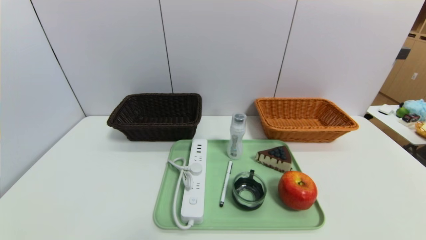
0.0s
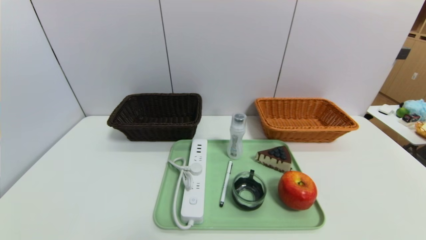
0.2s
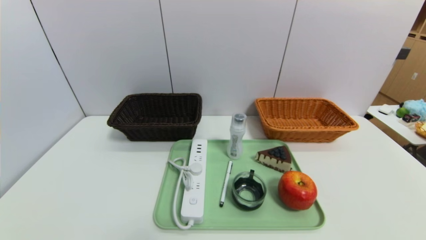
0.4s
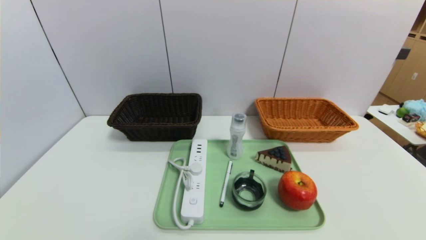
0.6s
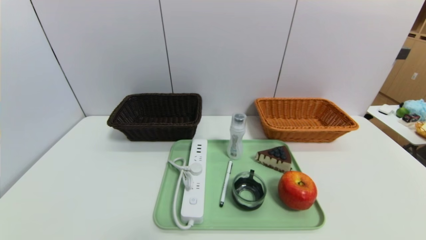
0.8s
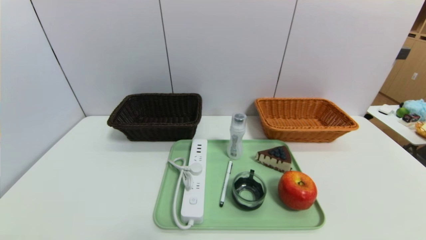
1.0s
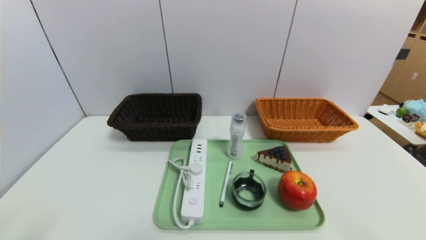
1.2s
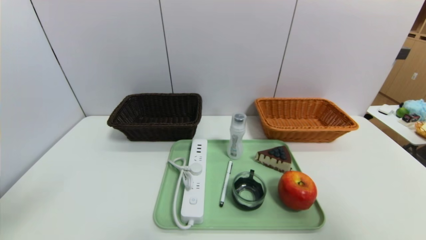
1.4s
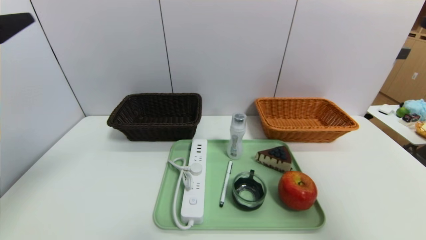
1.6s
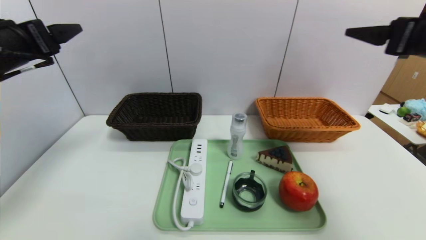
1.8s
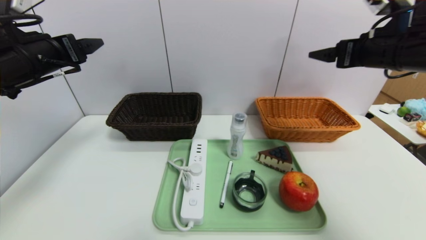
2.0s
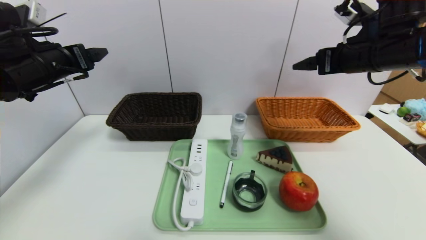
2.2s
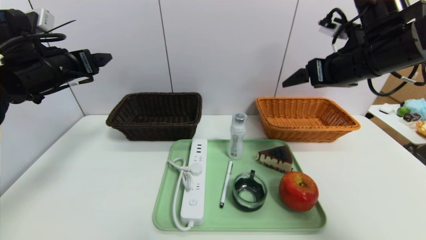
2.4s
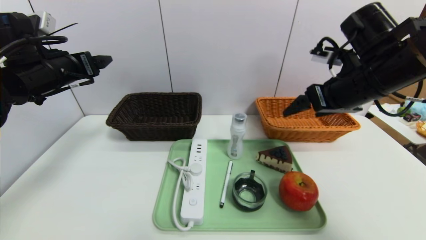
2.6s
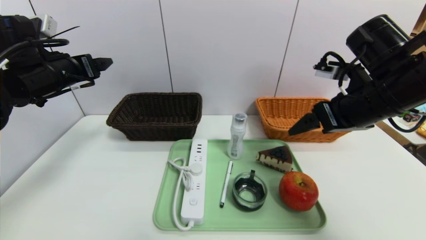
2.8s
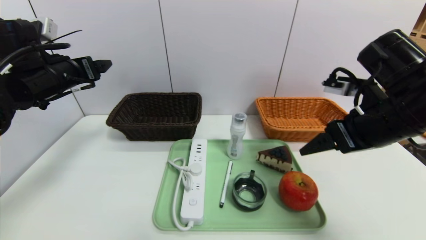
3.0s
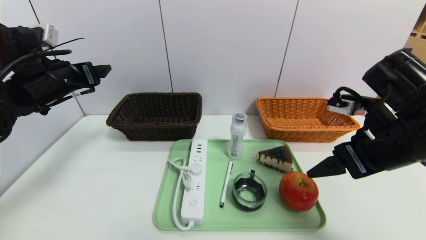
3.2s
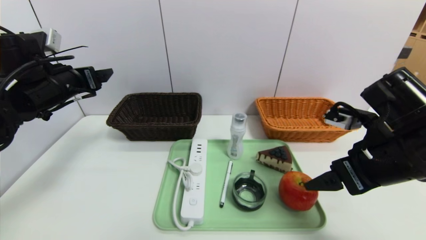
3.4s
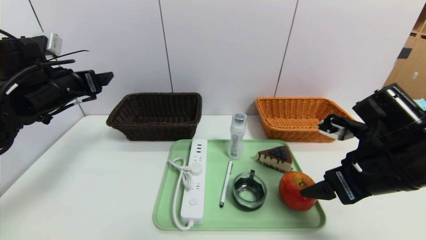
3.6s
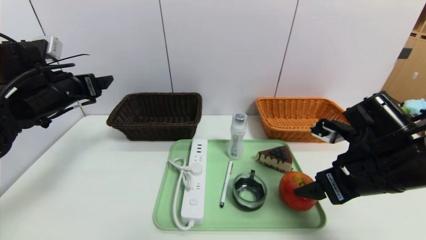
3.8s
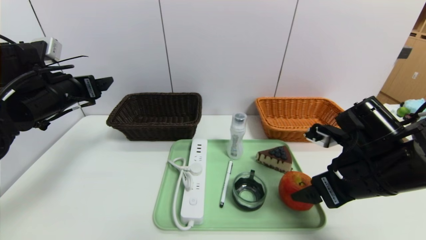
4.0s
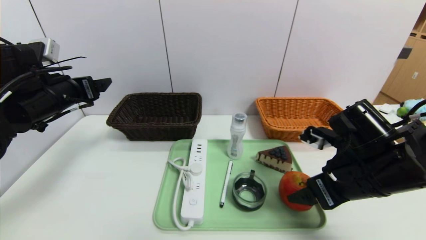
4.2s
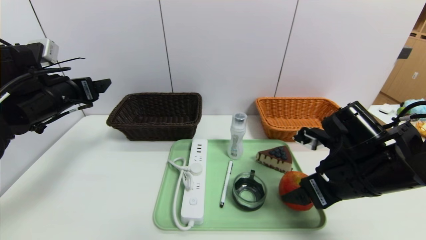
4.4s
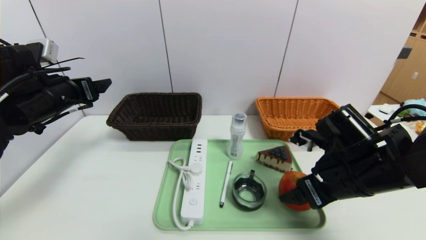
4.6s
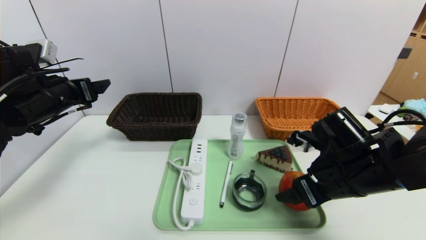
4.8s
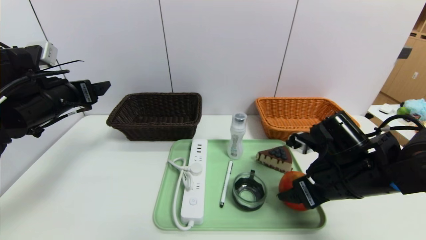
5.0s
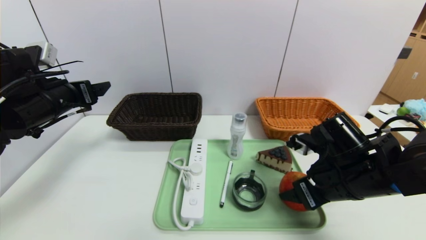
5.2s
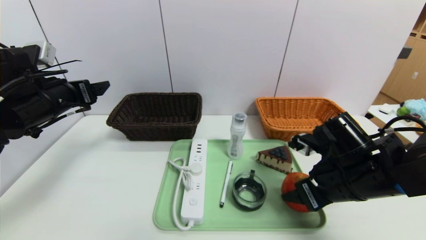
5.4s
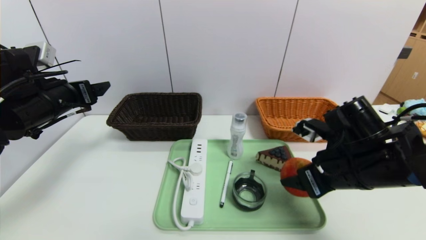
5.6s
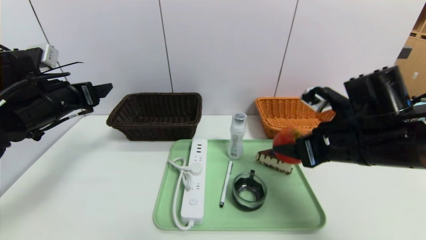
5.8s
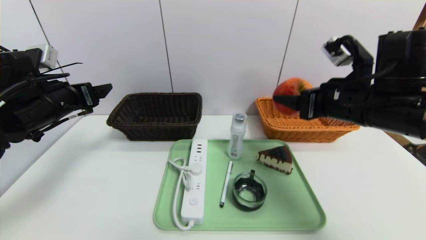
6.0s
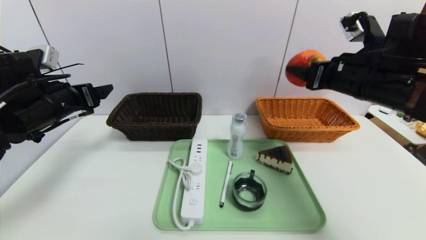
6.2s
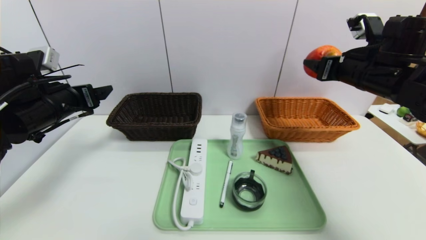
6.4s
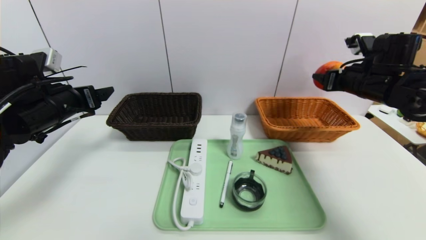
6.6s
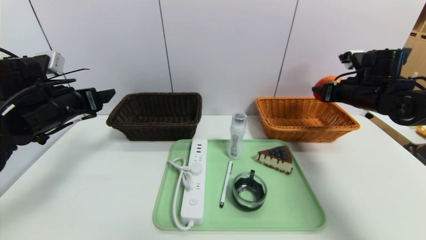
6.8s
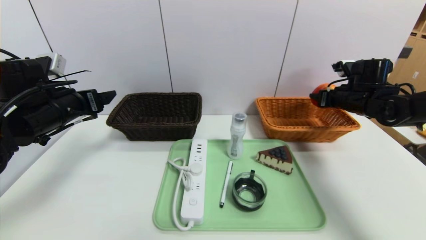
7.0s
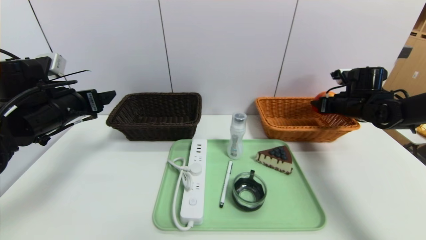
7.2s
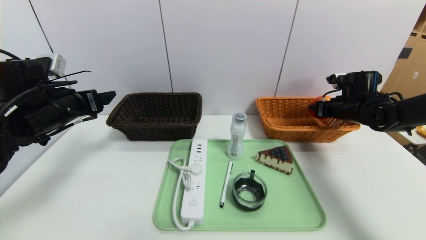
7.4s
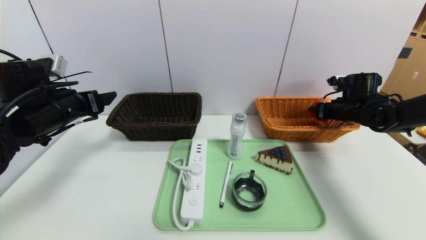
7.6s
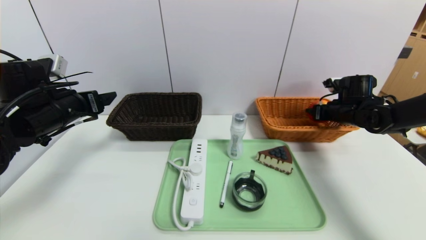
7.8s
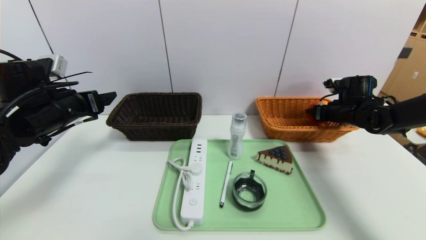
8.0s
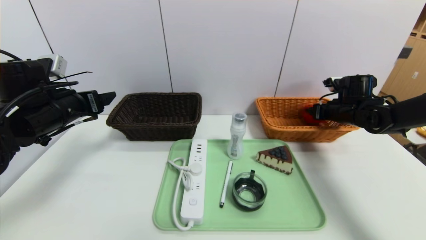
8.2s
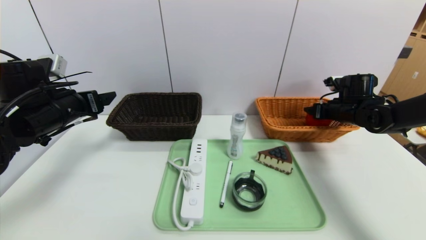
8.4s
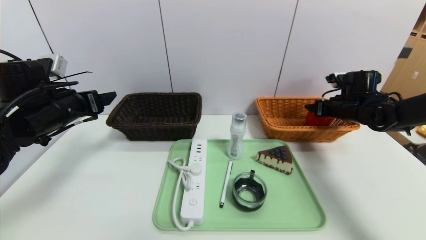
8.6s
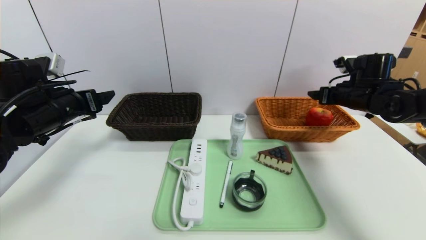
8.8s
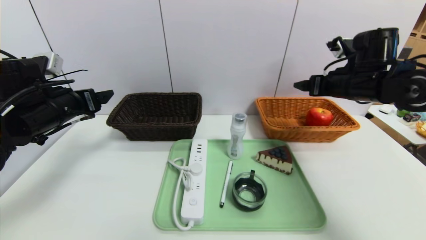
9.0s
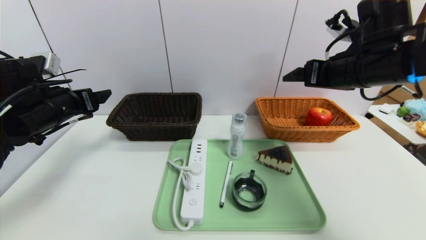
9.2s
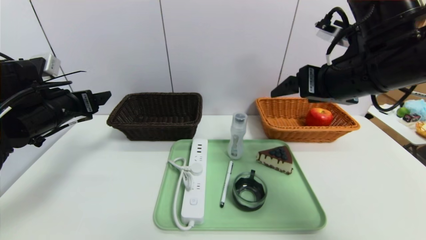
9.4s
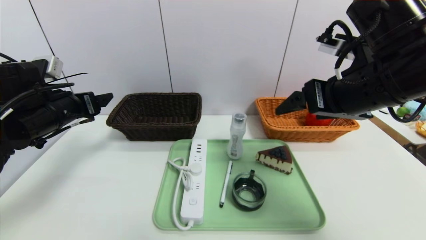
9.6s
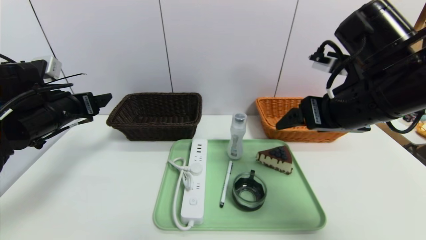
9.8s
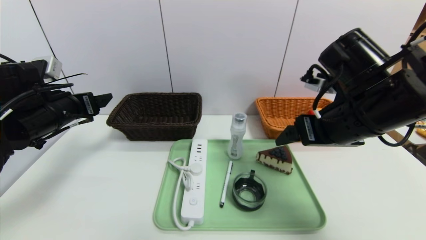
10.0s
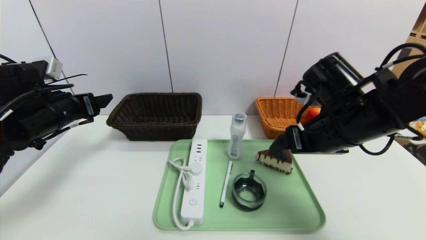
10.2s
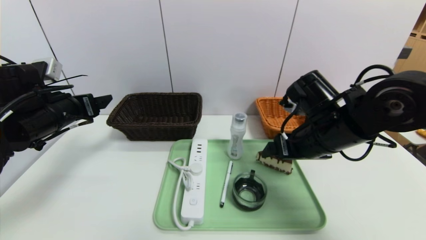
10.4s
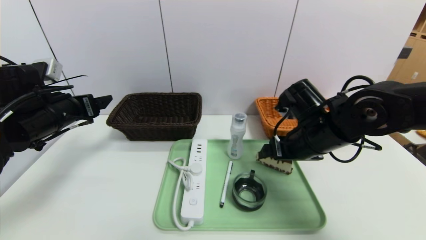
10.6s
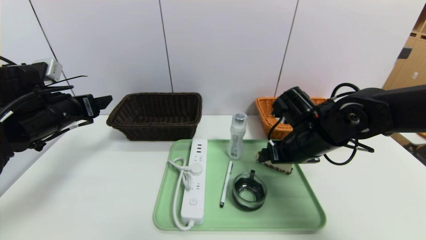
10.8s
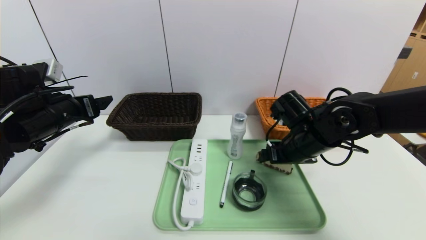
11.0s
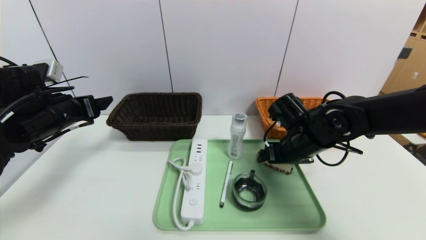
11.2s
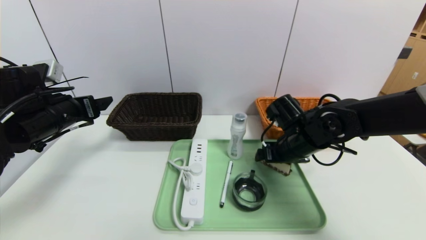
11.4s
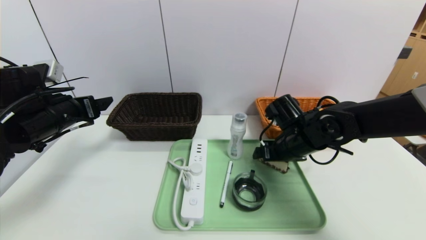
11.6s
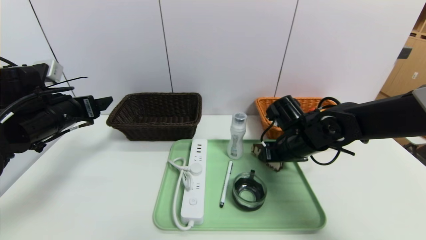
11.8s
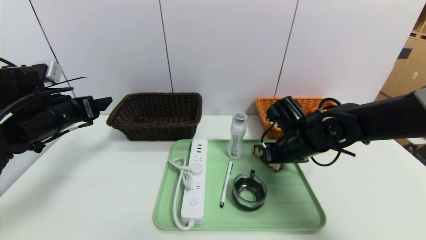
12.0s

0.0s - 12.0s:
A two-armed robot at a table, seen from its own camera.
Task of the whole recording: place the food in the right basket with the right gripper, and place the non food items in the left basket with the left gripper.
Step, 0.0s - 8.8s: Grasp the apple and put it in the right basket.
0.0s - 1.6s: The two grippers go approximately 35 cm upward and forward.
1.6s - 3.0s: The left gripper is displaced forward by approximately 15 cm; the right gripper goes about 15 cm downward, forward and to the left.
3.0s - 4.4s: The right gripper travels downward by about 10 cm.
4.4s - 6.0s: The right gripper moves upward, some 10 cm, and closes up.
6.0s - 7.6s: The right gripper shifts approximately 25 cm forward, to the right and downward.
7.6s - 9.0s: The right gripper travels upward, to the left and backward by some 15 cm, and opens up.
9.0s - 10.4s: The right gripper goes approximately 15 cm to the left, backward and downward.
10.4s - 12.0s: The right gripper travels downward by approximately 5 cm, and closes up.

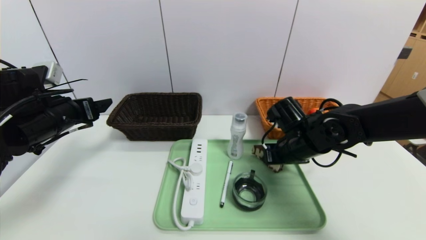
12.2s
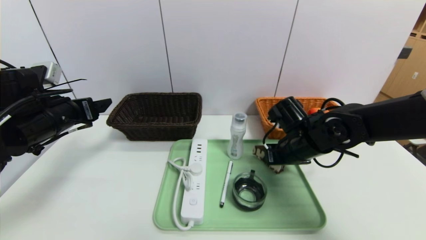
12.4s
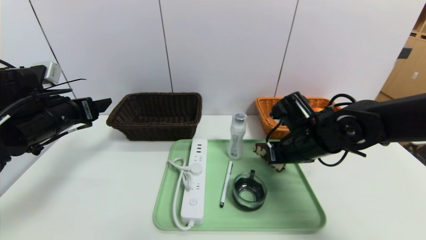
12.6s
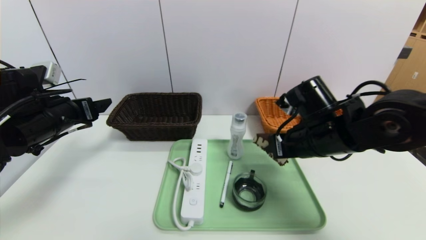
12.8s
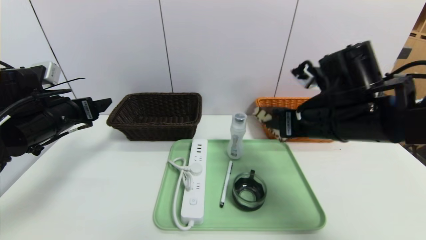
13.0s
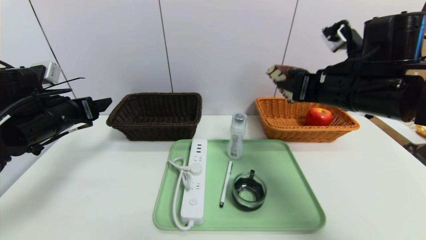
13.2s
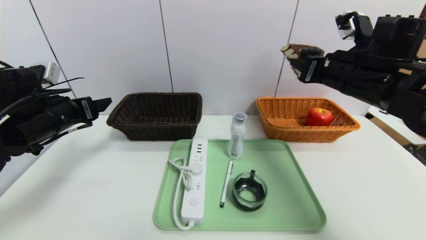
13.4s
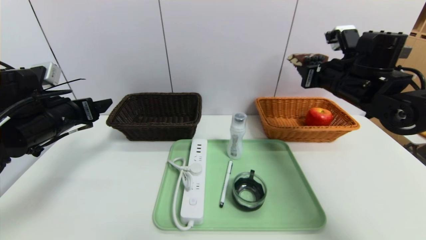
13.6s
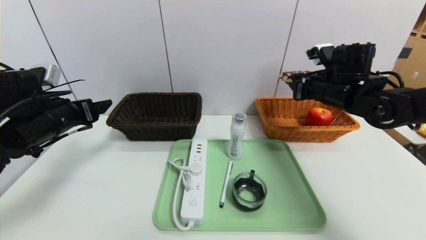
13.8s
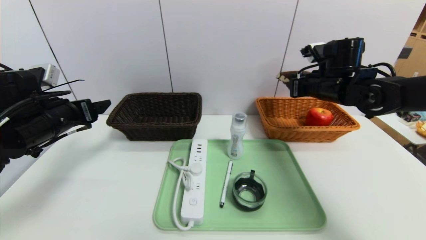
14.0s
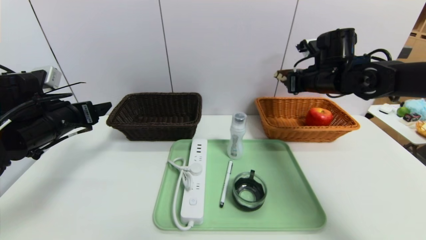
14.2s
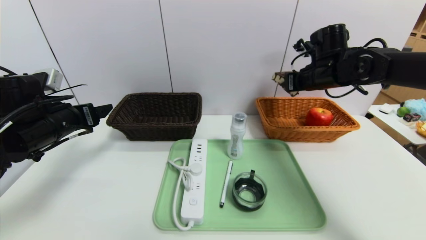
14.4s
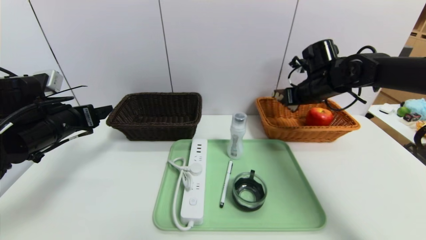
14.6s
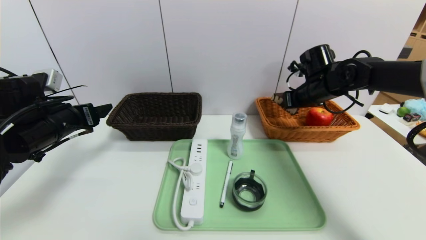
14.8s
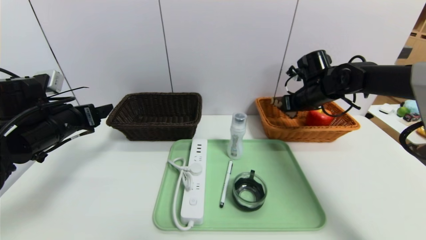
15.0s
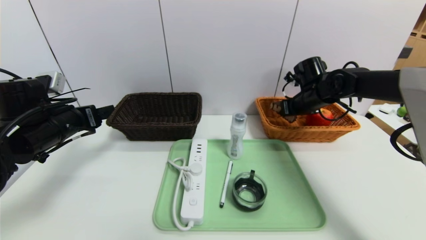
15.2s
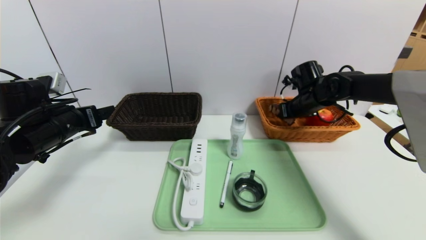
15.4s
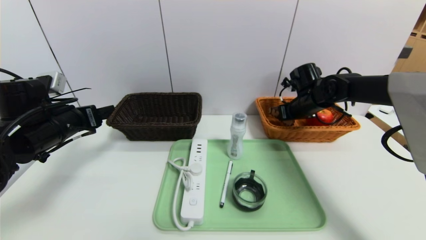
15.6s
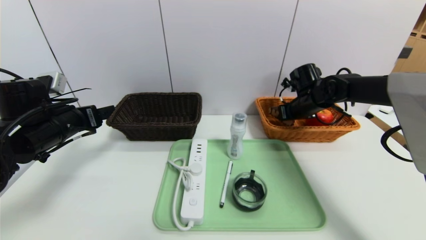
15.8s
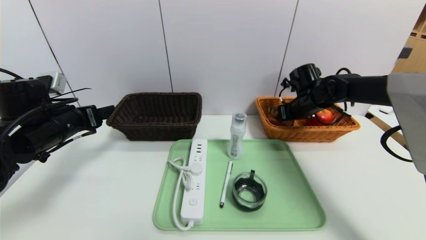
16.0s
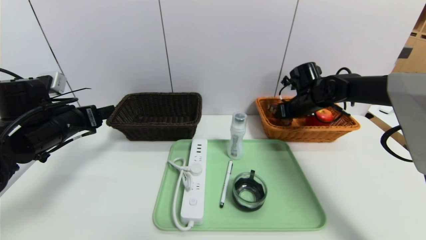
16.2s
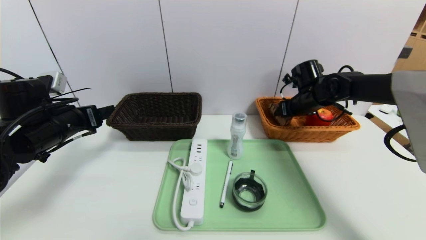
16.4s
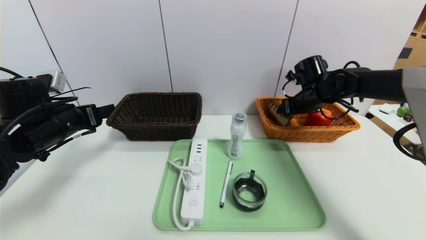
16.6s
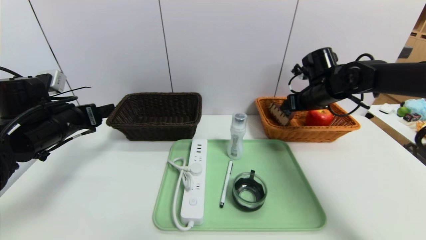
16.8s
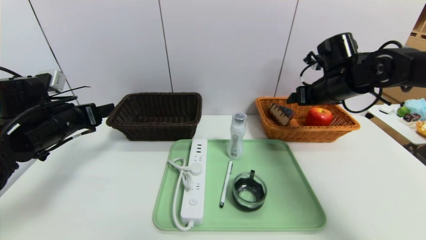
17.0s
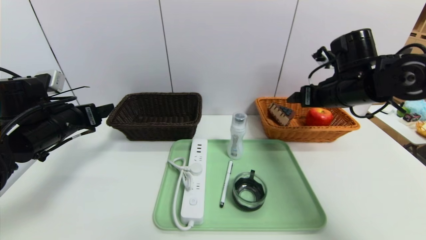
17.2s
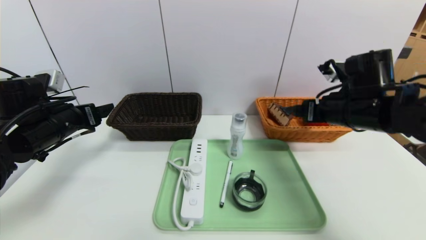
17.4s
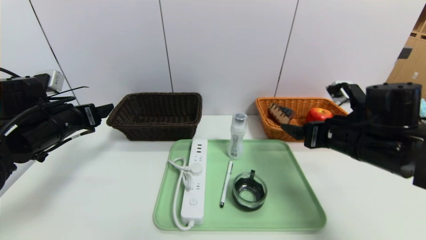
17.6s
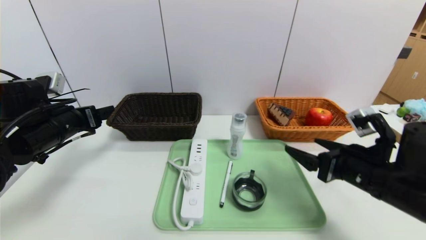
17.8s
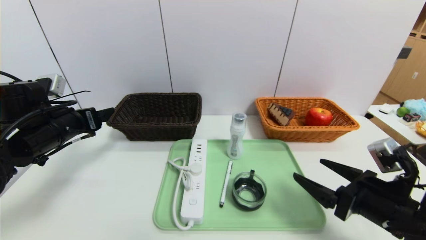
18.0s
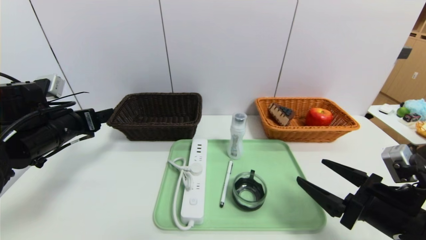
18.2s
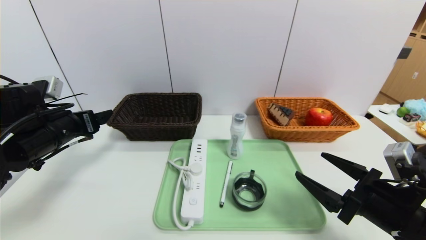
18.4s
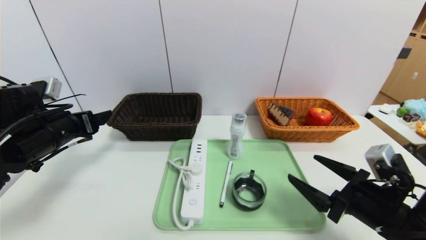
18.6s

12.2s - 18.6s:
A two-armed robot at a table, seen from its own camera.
Task of the whole recording: place the food in the right basket with the right gripper, and place the non food items in the left basket with the left gripper.
Step, 12.2s - 16.8s: Grasp the triangle cake and put it in the right basket.
12.2s - 13.8s: The right gripper shifts some 15 cm upward, to the right and forward.
13.8s - 15.4s: The right gripper travels forward and downward by roughly 10 cm.
15.4s - 17.0s: The right gripper moves upward and backward, about 10 cm, and opens.
17.0s - 18.6s: The right gripper goes some 25 cm backward and downward.
